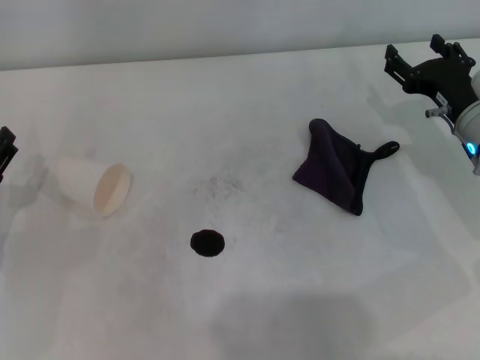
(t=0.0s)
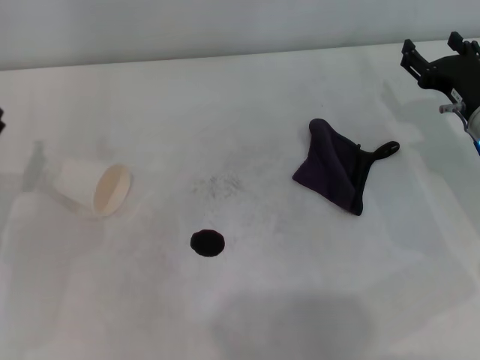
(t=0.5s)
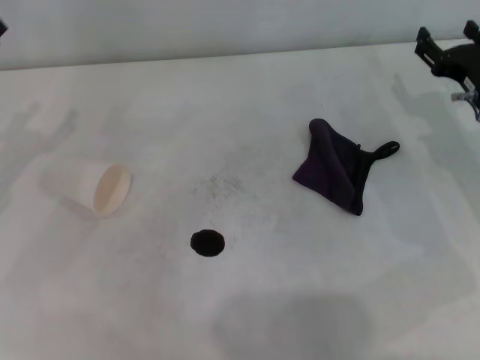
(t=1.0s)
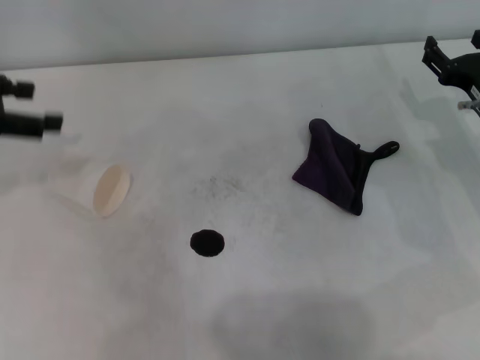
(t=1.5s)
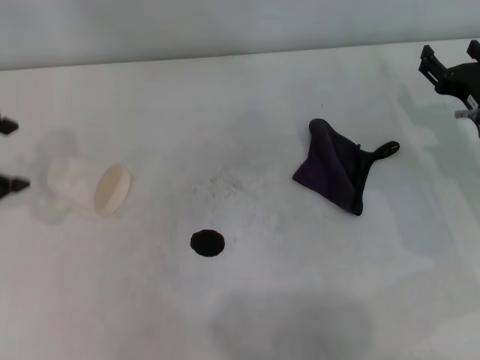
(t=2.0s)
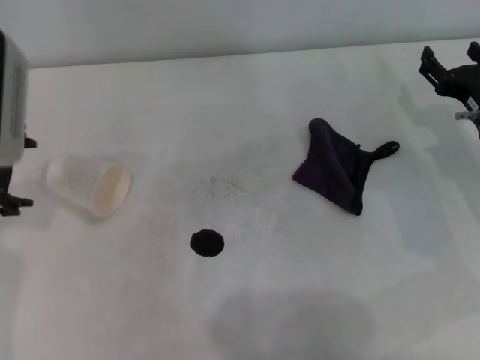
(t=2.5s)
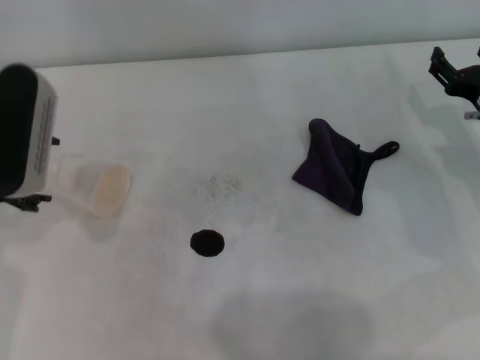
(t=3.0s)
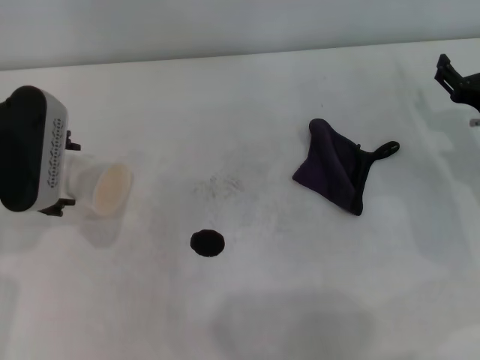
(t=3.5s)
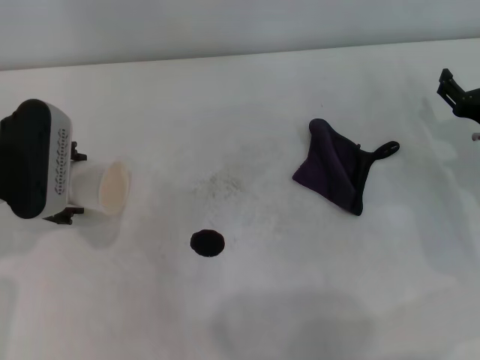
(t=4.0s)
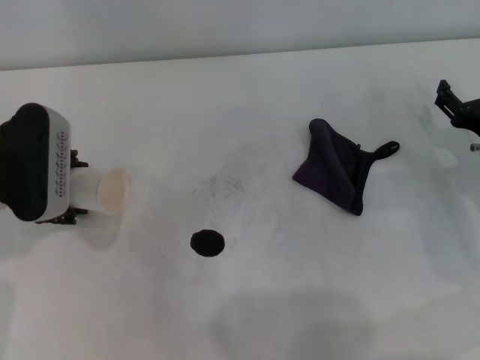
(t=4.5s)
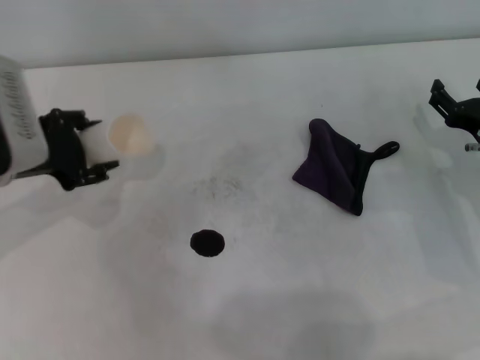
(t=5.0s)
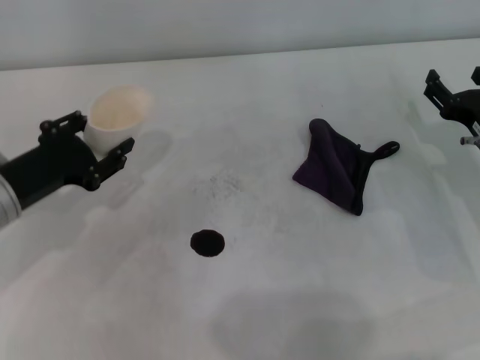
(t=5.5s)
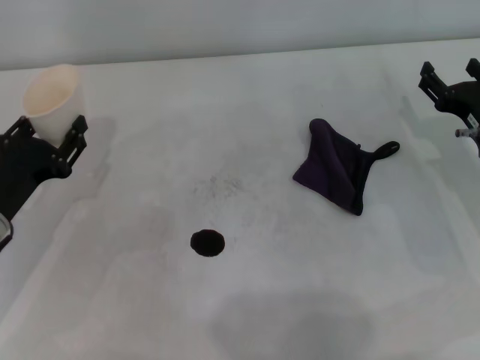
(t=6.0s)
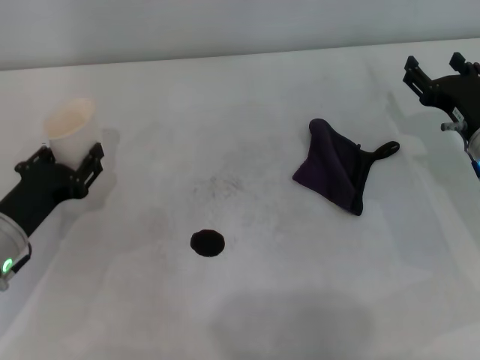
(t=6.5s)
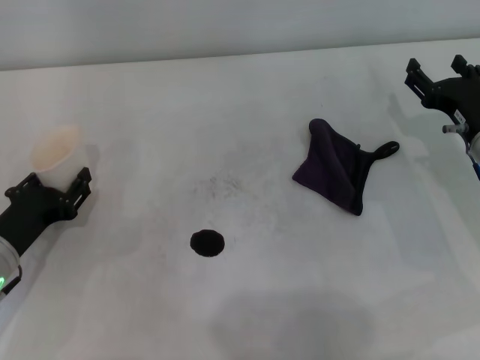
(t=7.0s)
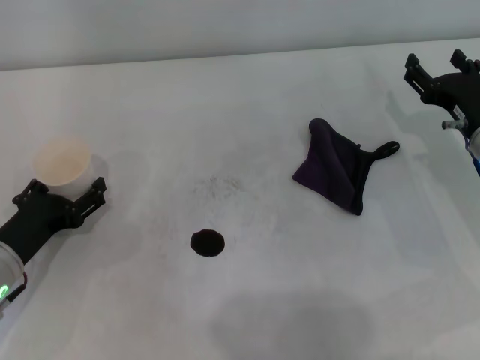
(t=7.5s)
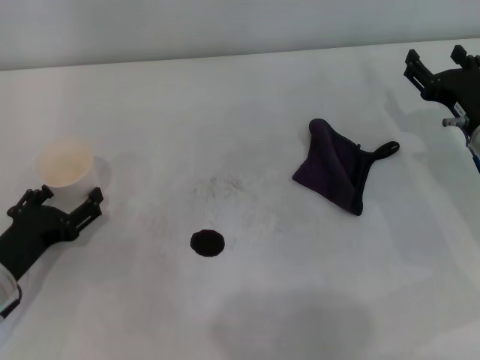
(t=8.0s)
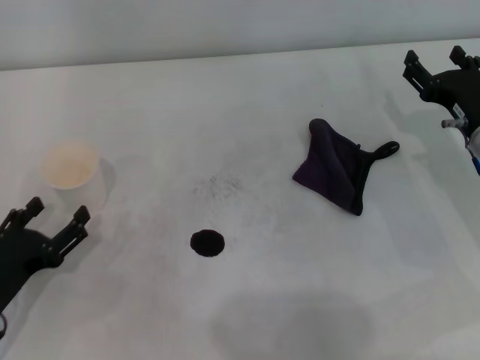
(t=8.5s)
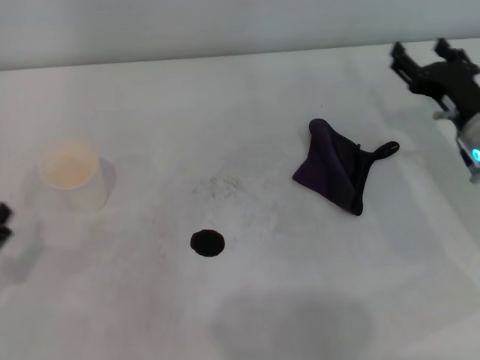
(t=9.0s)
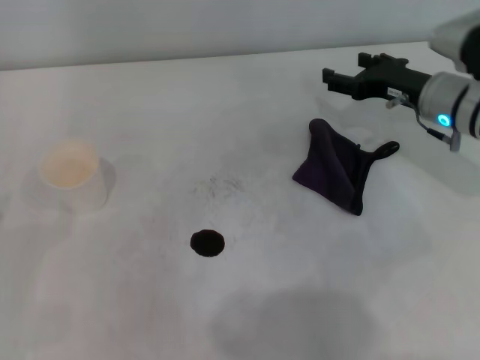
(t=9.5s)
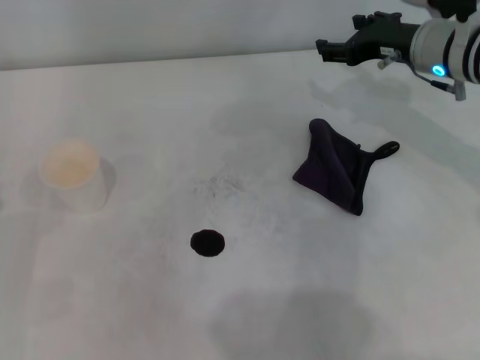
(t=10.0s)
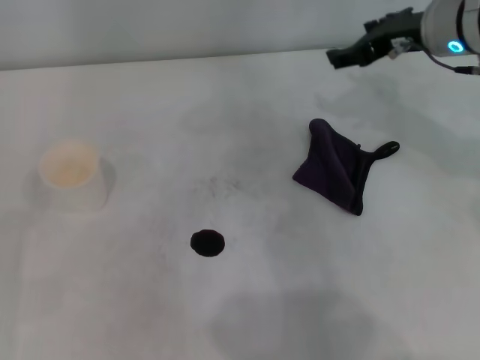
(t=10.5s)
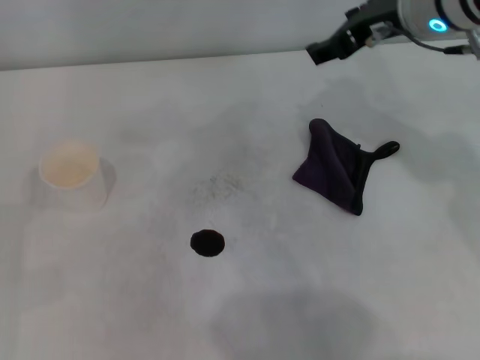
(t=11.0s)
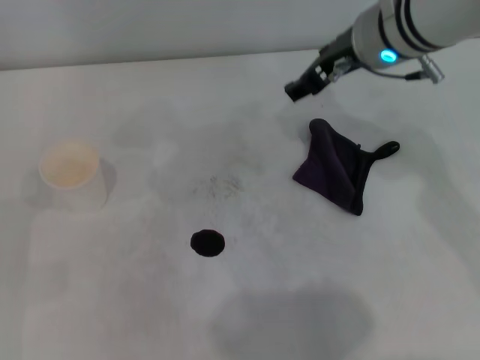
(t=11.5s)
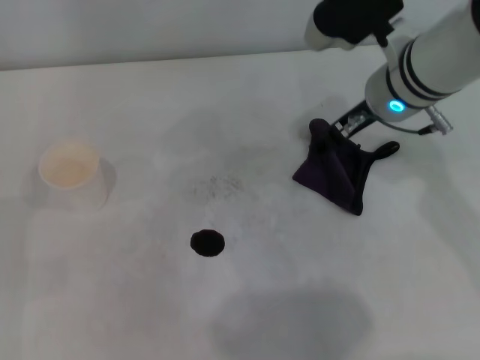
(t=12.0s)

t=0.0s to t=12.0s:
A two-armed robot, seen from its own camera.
Step, t=0.0s to t=4.0s: Grasp the paper cup with the left gripper.
Step, t=4.5s to t=8.0s: Stand the paper cup upright with the left gripper.
t=0.0s to t=2.0s: The left gripper heads upward, covering roughly 20 cm.
t=2.0s to t=4.0s: The left gripper heads downward and to the right, covering approximately 15 cm.
t=4.0s to t=6.0s: The left gripper moves downward and backward, roughly 10 cm, and closes its fingers.
t=6.0s to t=8.0s: The left gripper changes place by about 5 cm, and opens up.
t=8.0s to t=10.0s: The right gripper heads forward and upward, covering approximately 15 cm; the left gripper heads to the left, covering about 5 cm.
t=10.0s to t=12.0s: The right gripper heads to the left, covering roughly 10 cm, and goes upward and returns, approximately 10 cm each way.

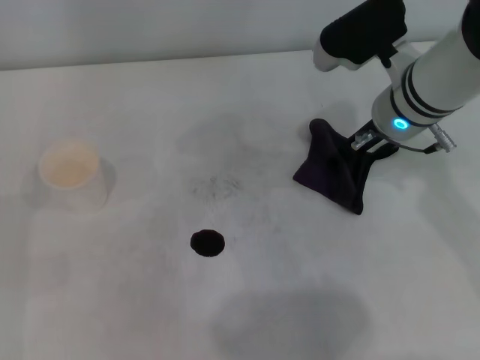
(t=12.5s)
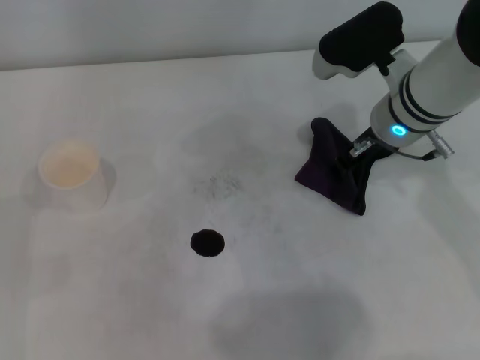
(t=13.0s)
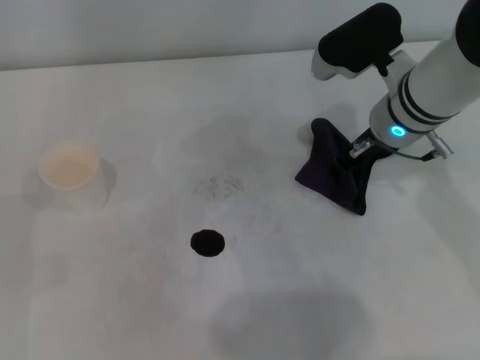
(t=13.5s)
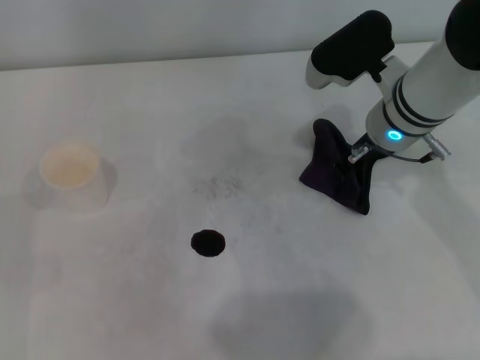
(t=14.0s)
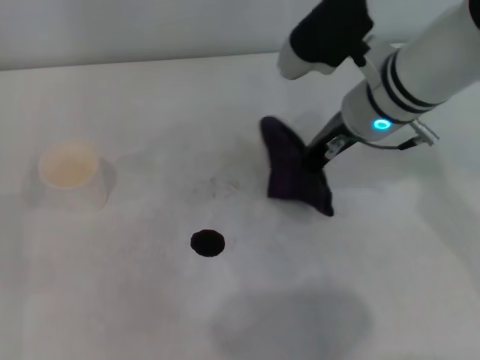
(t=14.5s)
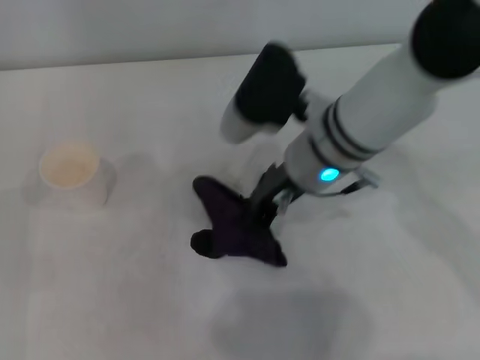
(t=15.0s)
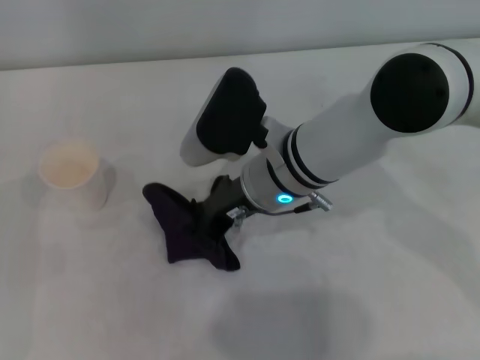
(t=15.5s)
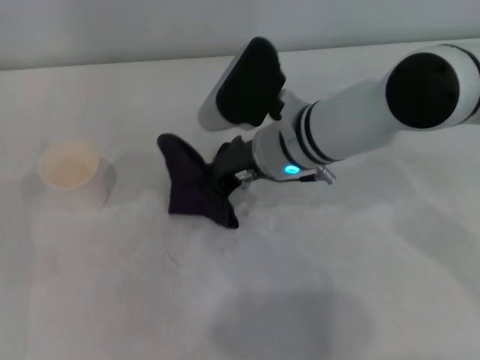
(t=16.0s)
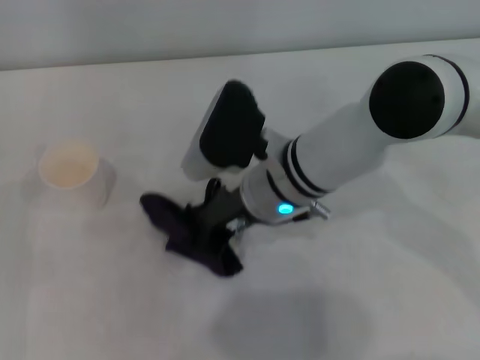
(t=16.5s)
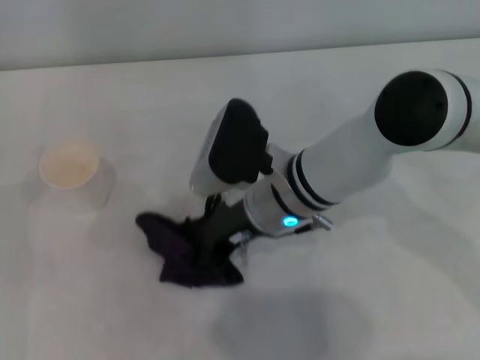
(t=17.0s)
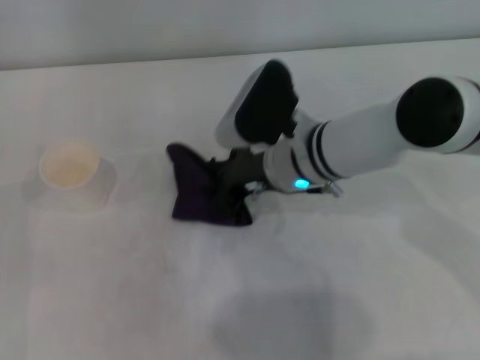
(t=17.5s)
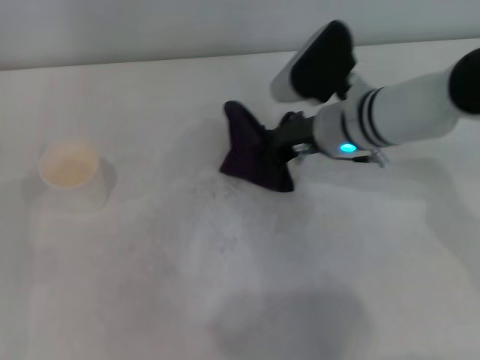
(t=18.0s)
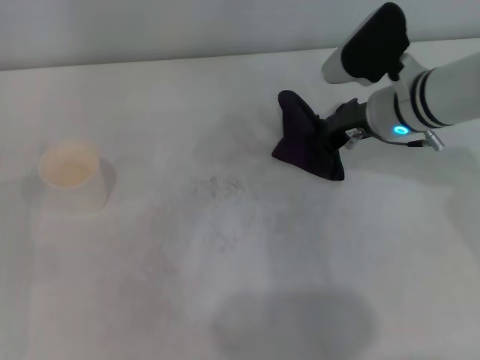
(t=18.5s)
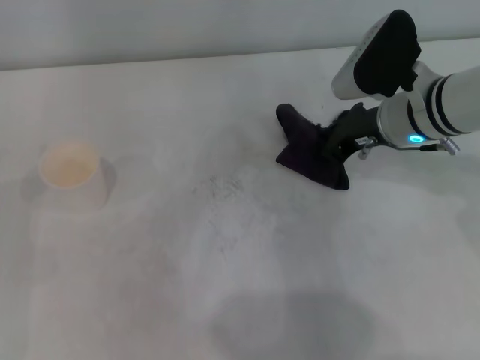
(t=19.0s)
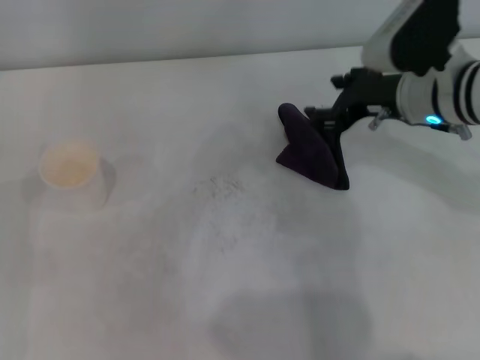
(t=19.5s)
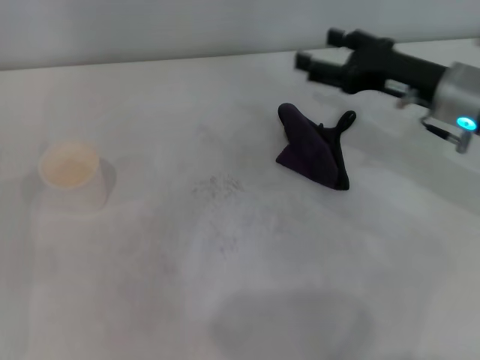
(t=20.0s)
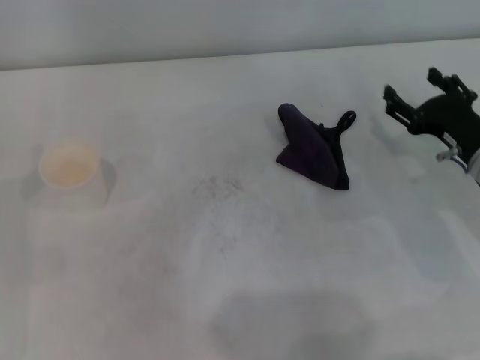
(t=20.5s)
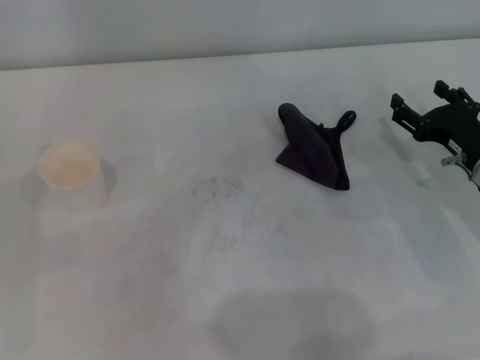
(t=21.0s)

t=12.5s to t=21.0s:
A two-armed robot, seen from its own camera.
Step, t=14.5s to t=18.0s: Wipe the stains off the table with the right gripper.
Step, t=18.5s to t=19.0s: Place the rag on the table with the right gripper.
t=12.5s to t=14.5s: The right gripper closes.
t=14.5s to t=16.5s: The right gripper travels to the left and downward by approximately 10 cm.
t=16.5s to t=19.0s: The right gripper goes approximately 15 cm to the right.
t=19.0s to t=21.0s: The right gripper travels to the right, downward and backward by about 15 cm, and opens.

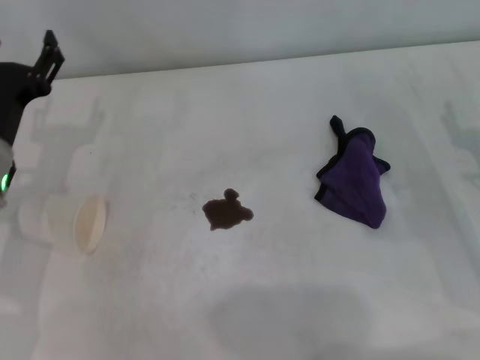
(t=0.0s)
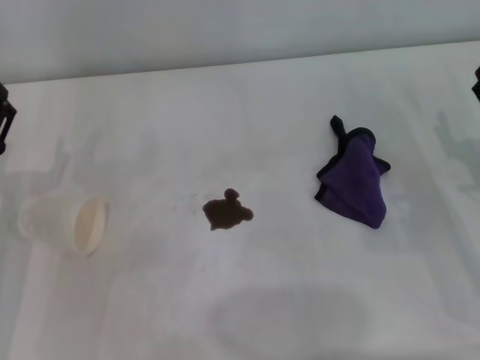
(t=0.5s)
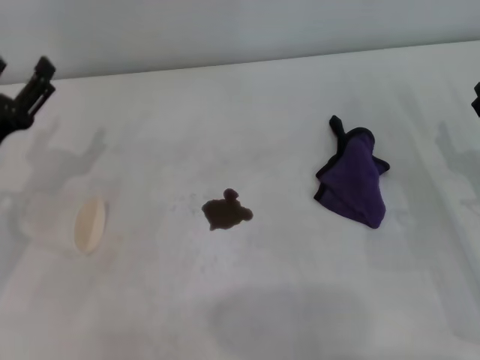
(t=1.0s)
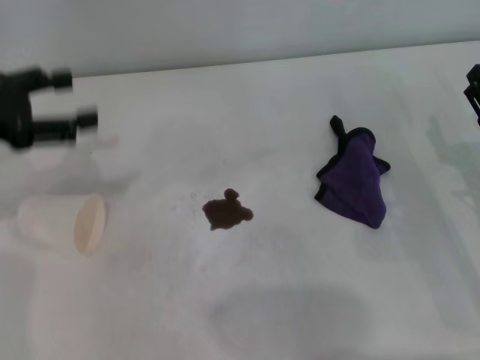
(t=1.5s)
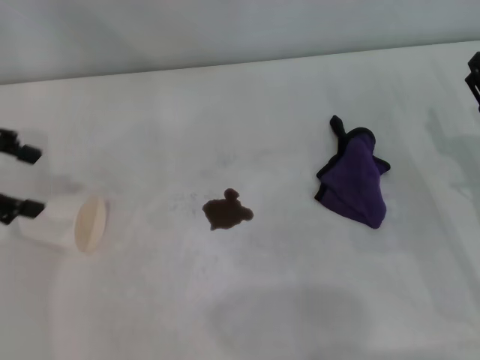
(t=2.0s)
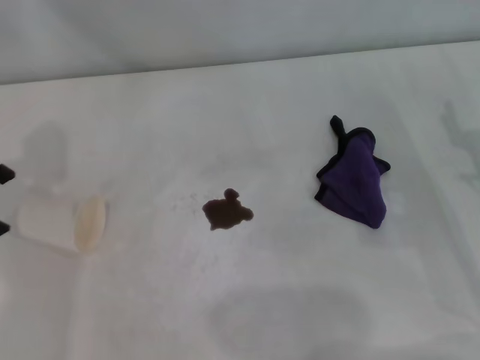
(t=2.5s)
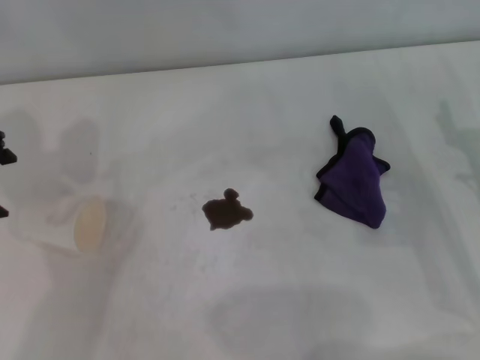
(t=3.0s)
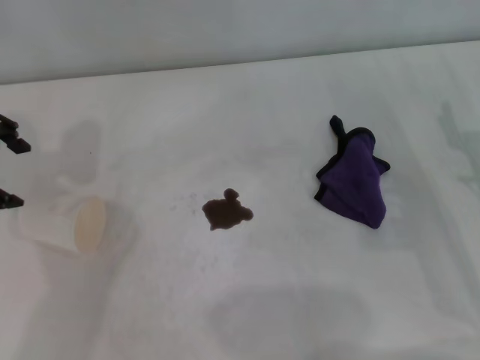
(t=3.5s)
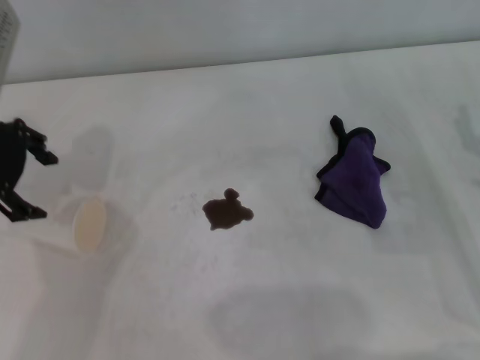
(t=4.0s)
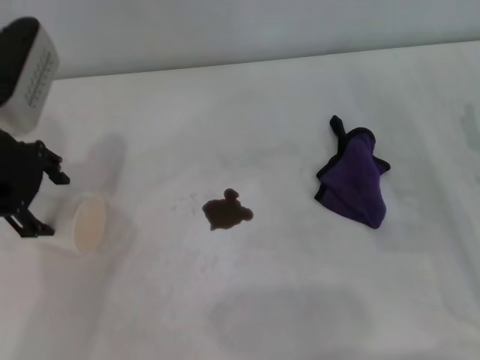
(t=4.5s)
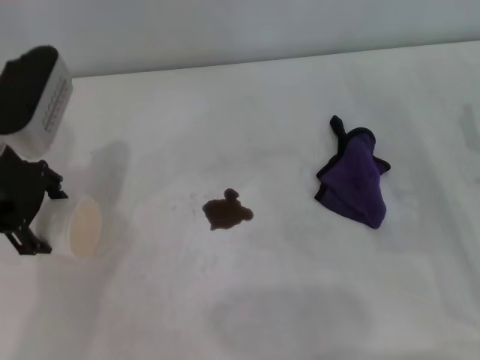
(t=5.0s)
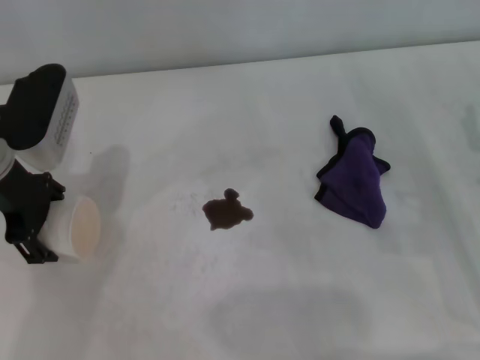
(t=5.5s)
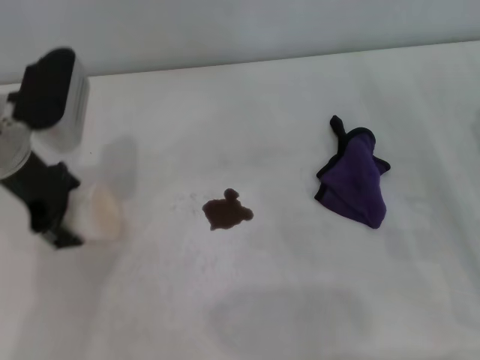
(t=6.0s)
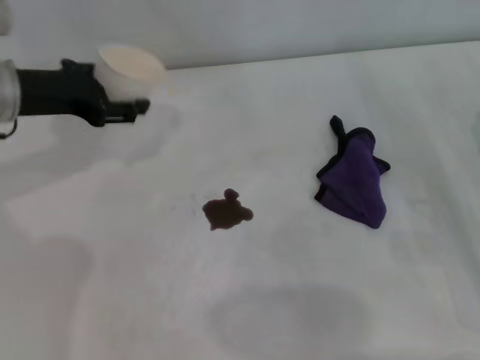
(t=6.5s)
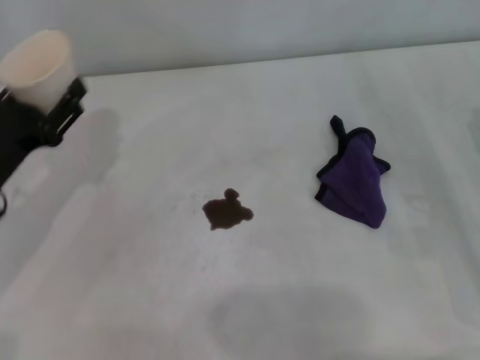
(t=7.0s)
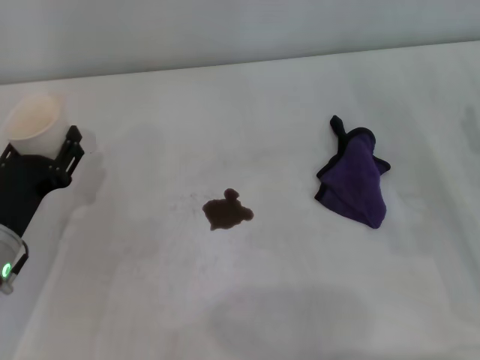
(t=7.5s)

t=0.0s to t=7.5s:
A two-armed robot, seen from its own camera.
Step, t=0.0s to t=5.5s: Grasp the paper cup with the left gripper.
t=0.0s to t=2.0s: The left gripper travels upward and to the left by about 15 cm.
t=2.0s to t=4.0s: The left gripper goes roughly 5 cm to the right.
t=4.0s to t=5.5s: The left gripper moves downward, roughly 5 cm.
t=5.5s to t=7.5s: The left gripper heads downward and backward, covering approximately 15 cm, and closes.
